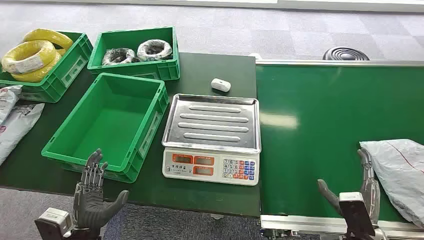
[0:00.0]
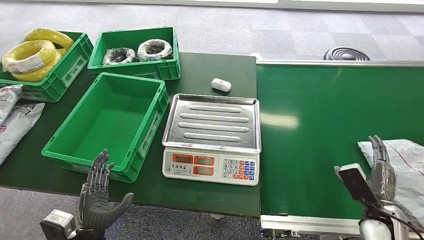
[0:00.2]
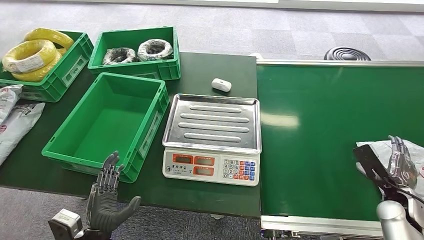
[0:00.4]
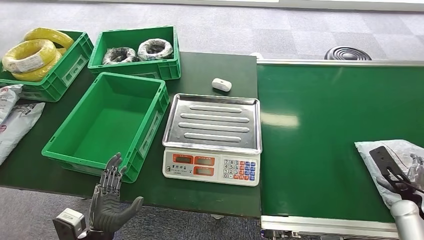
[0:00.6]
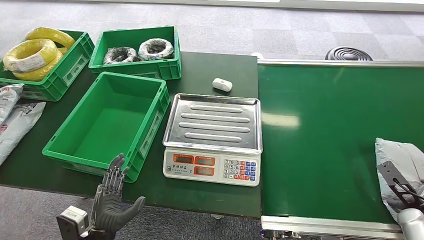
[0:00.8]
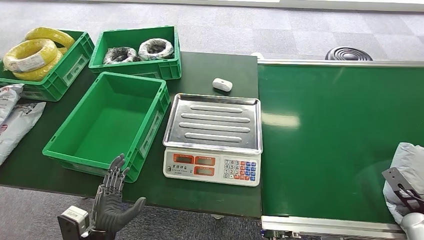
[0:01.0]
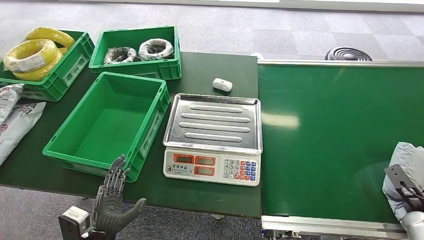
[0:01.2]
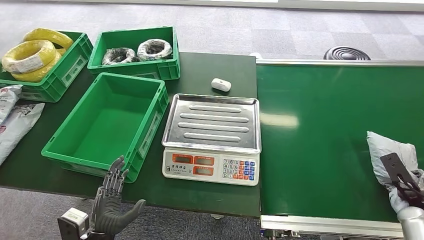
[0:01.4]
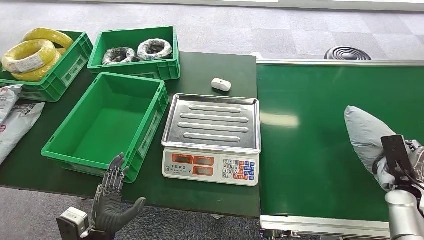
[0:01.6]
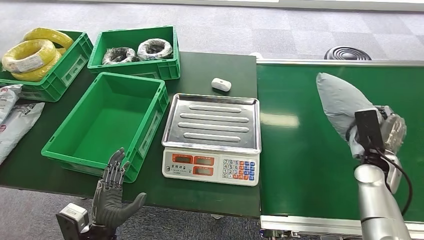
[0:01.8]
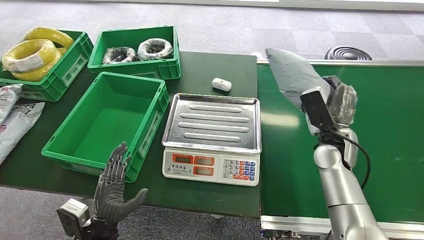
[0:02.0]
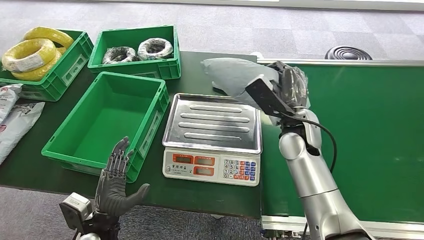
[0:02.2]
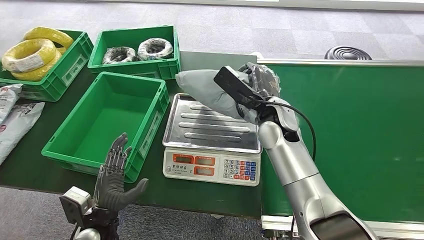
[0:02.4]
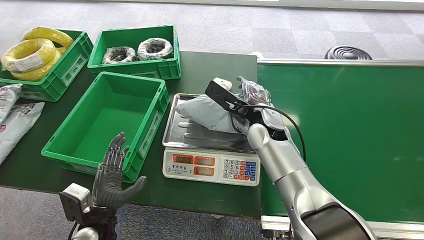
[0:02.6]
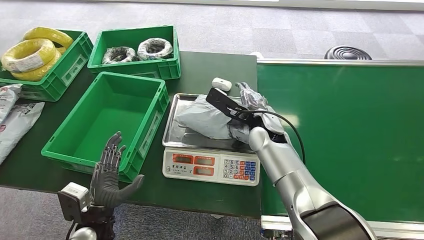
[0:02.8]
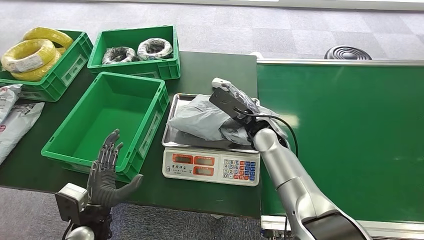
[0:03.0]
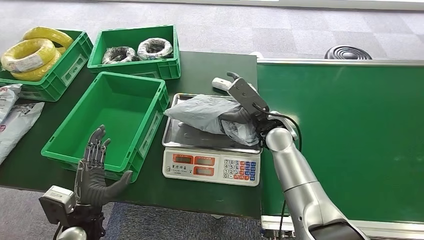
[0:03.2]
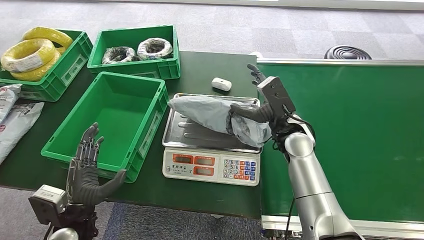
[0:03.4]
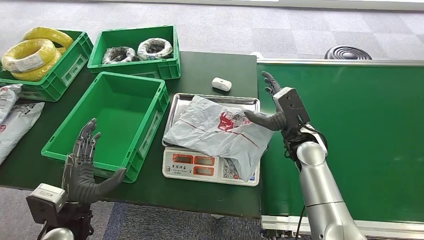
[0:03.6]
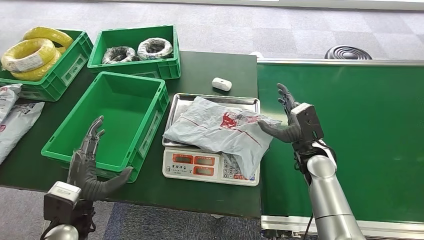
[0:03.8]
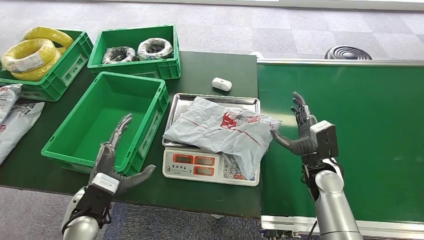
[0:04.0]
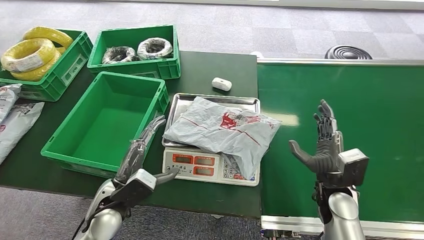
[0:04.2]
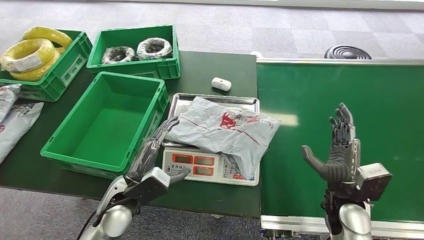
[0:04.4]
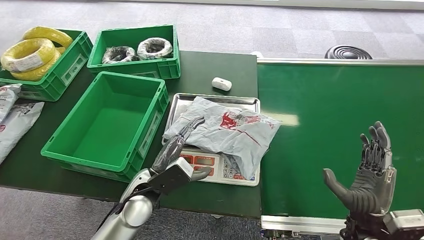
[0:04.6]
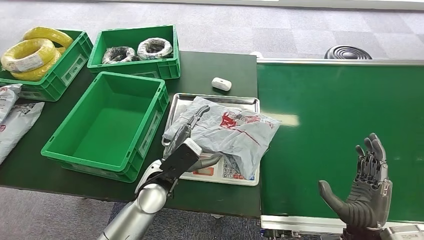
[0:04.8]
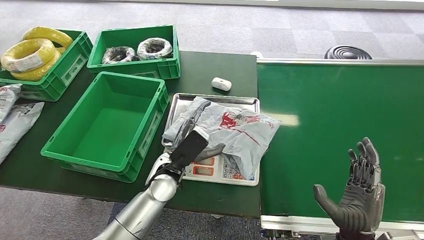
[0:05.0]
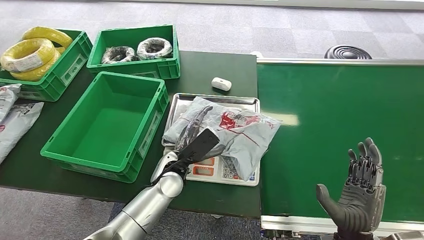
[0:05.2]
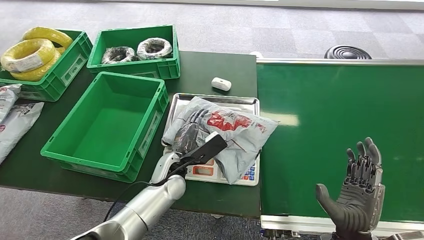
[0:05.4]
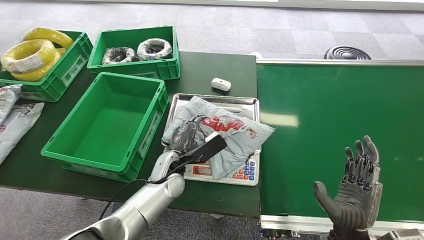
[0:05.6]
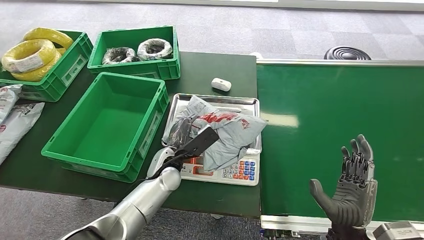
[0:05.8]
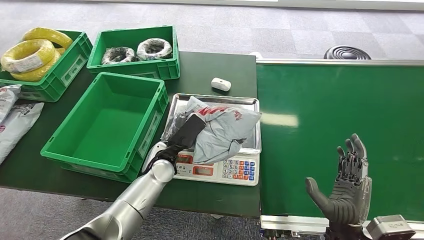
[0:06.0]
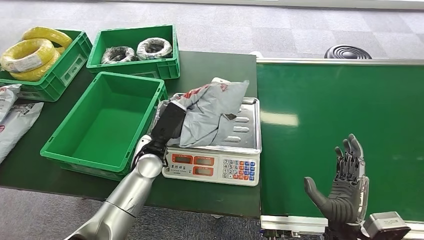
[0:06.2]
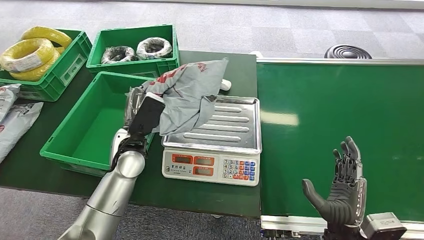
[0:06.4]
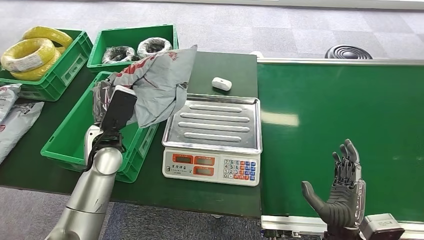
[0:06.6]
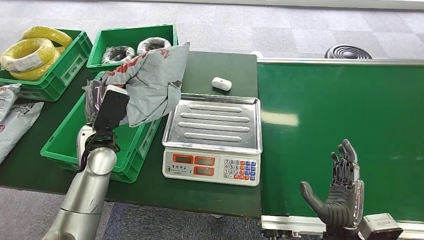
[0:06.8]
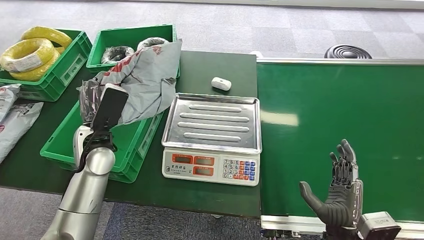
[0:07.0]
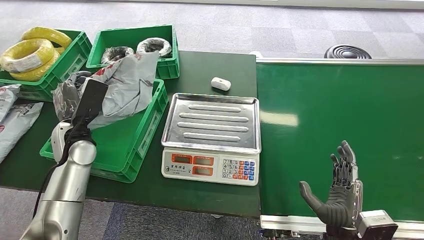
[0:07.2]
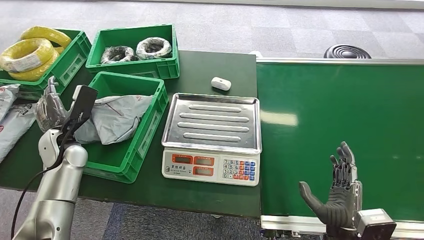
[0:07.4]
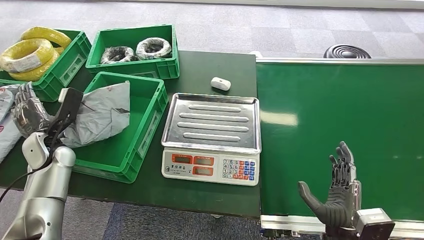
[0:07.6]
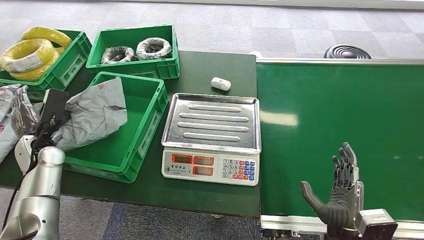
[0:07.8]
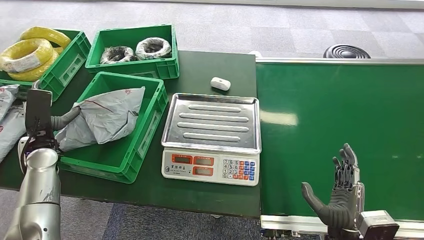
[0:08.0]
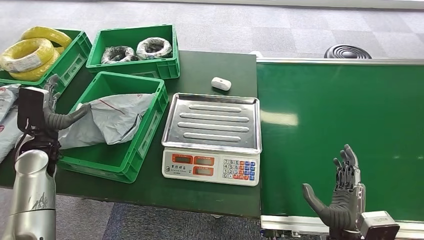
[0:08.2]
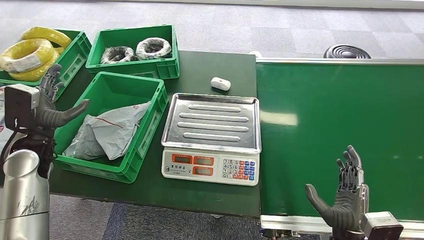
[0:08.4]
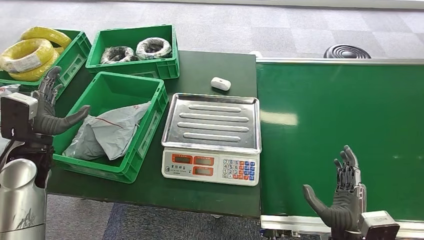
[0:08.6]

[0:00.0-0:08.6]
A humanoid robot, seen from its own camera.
Step, 0:00.0 to 0:01.8: Pick up the package from the conveyor belt.
Step, 0:02.0 to 0:03.8: Place the package onto the inbound machine.
Step, 0:04.2 to 0:06.4: Pick up the package from the inbound machine.
Step, 0:06.8 to 0:08.6: Place the package into the parcel locker.
0:04.4 to 0:05.8: The right hand moves backward, about 10 cm; the left hand is displaced forward and to the right by some 10 cm.
0:07.2 to 0:08.6: The left hand moves to the left and backward, about 10 cm.

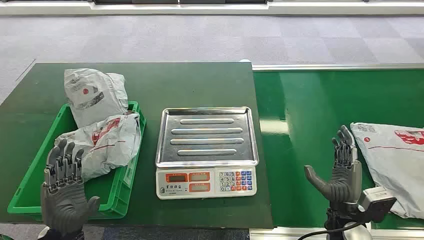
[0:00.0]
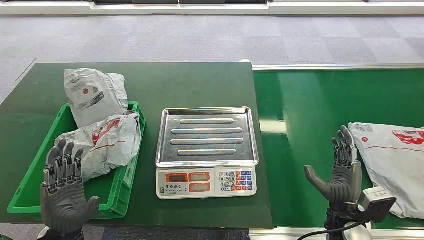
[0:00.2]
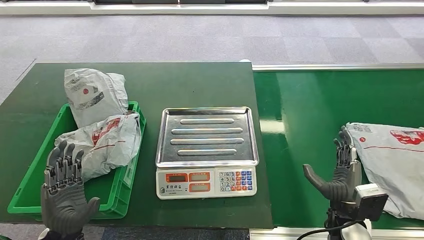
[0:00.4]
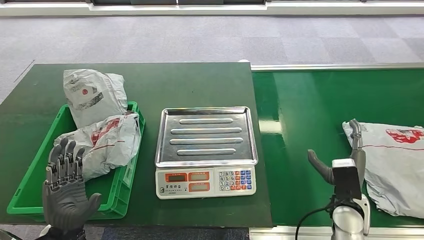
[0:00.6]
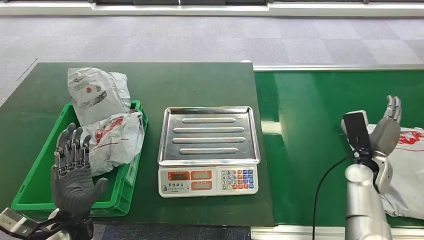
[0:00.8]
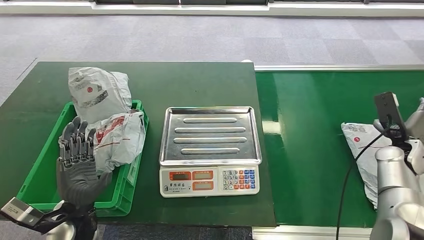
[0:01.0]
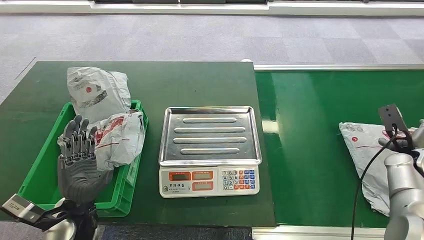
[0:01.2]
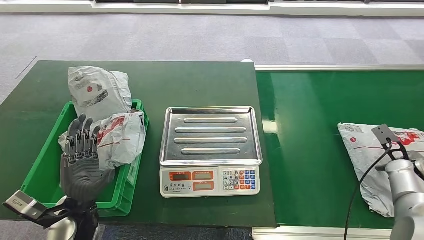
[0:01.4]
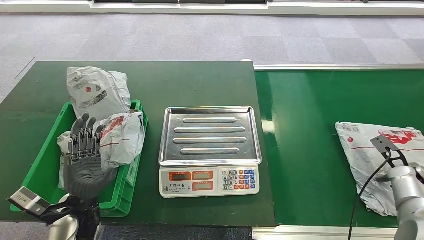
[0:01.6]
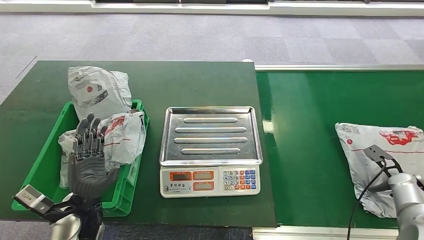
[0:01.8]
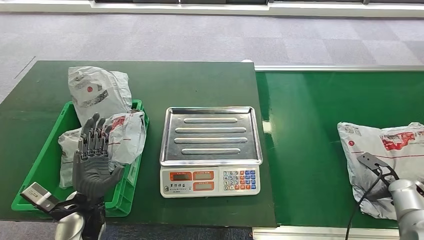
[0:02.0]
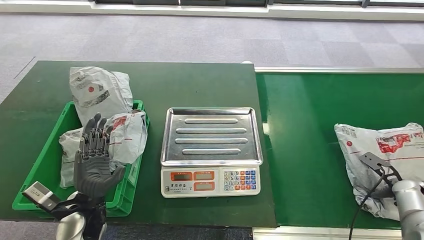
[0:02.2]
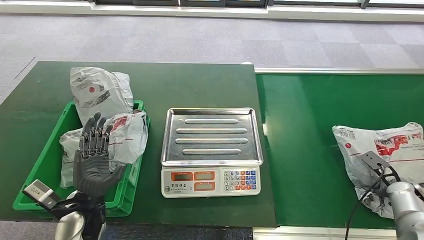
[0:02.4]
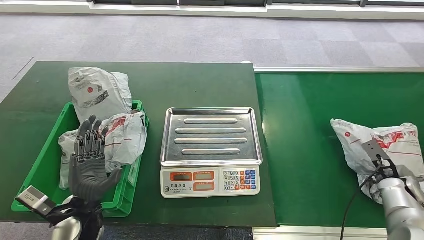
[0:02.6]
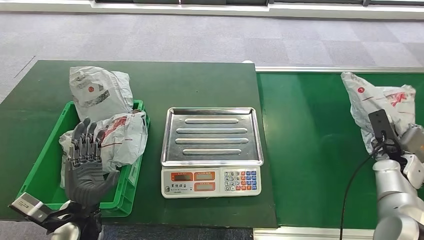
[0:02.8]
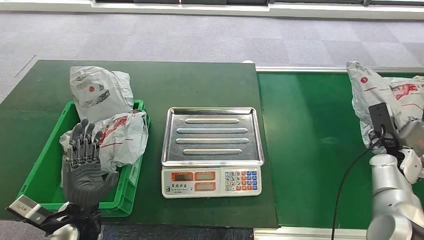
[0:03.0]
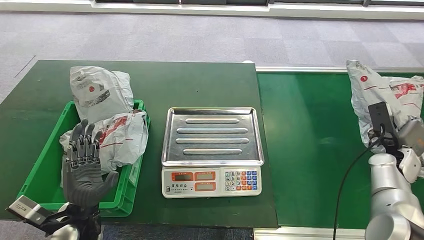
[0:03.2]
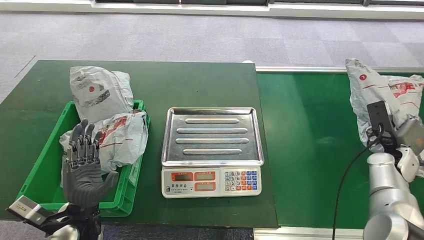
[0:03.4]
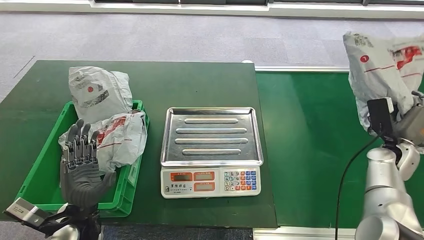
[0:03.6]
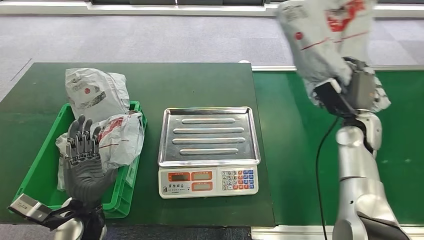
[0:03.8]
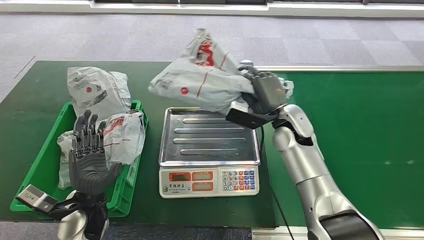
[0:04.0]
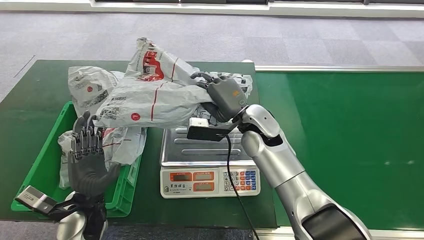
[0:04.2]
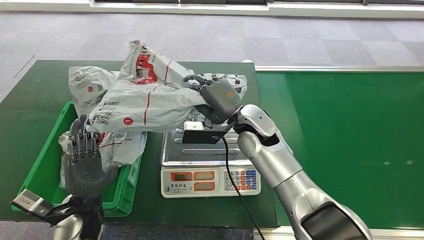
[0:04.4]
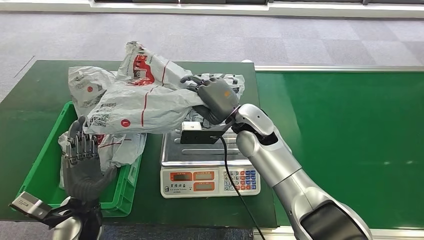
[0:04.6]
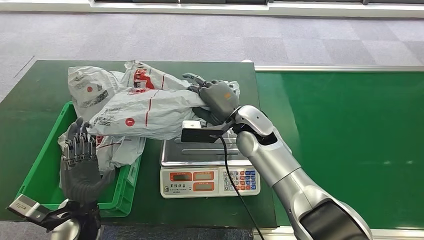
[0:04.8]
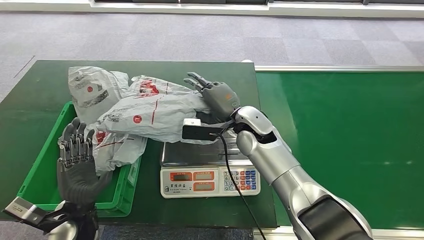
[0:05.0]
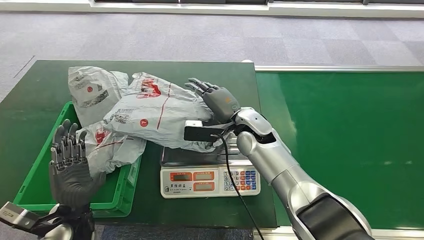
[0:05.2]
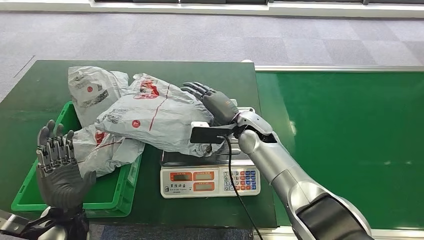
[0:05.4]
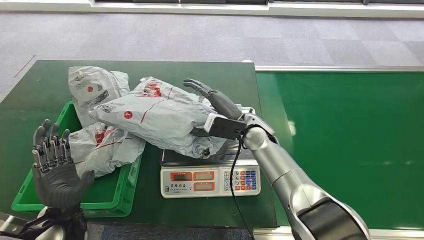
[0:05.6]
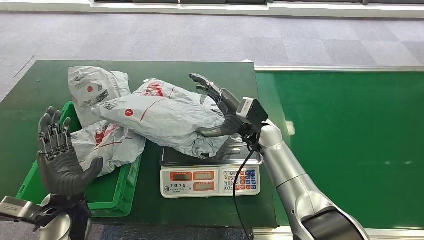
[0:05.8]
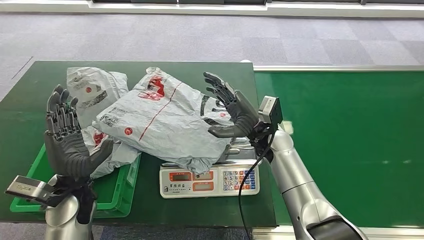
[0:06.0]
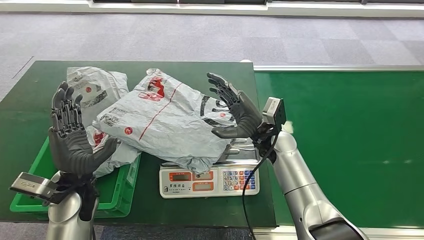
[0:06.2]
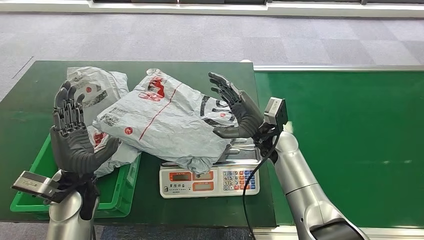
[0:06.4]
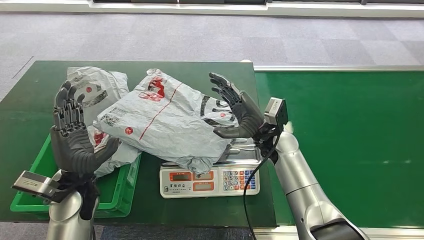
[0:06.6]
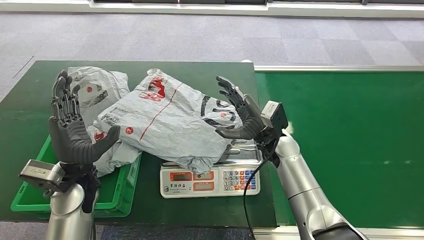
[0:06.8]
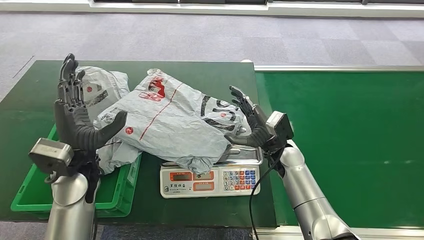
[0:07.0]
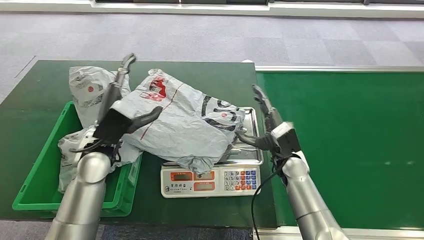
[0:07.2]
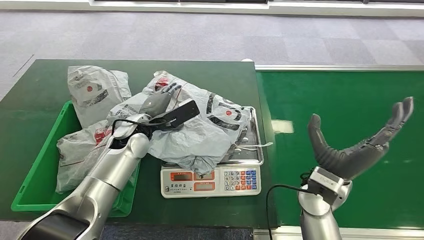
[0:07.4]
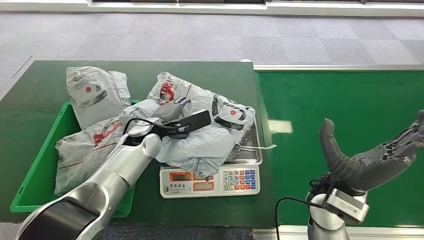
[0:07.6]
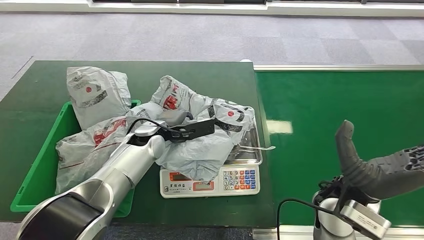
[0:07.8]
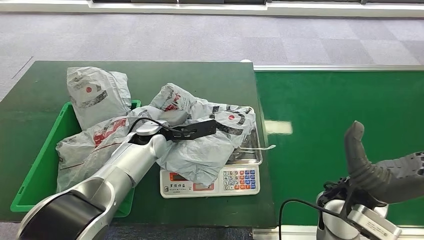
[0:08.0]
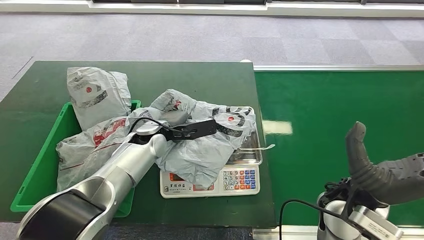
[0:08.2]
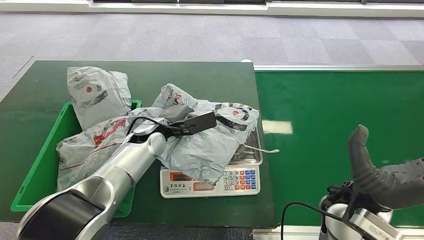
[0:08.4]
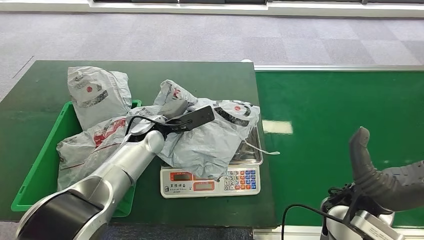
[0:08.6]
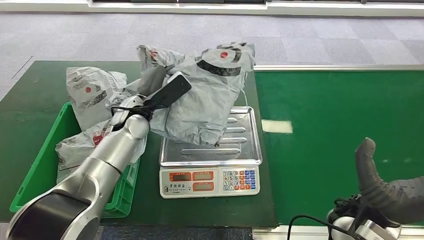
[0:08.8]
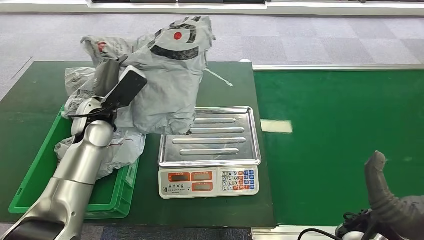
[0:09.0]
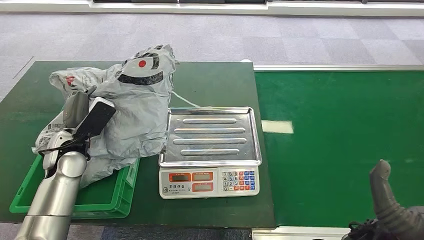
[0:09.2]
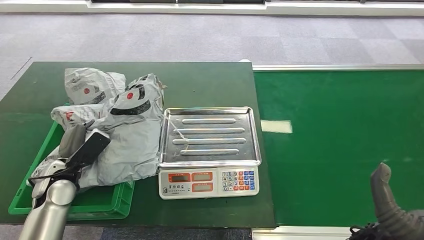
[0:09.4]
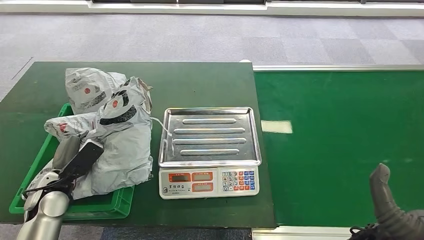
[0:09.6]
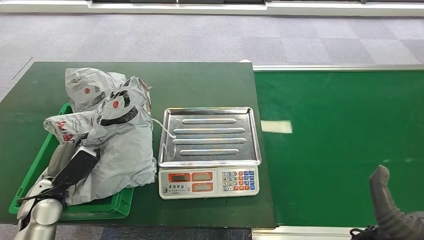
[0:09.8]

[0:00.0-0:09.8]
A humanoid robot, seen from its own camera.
Step, 0:00.0 to 0:03.6: Pick up the package from the conveyor belt.
Step, 0:03.8 to 0:05.2: Place the package onto the inbound machine.
Step, 0:06.2 to 0:09.0: Pick up the package from the inbound machine.
Step, 0:09.2 to 0:09.8: Place the package into the parcel locker.
